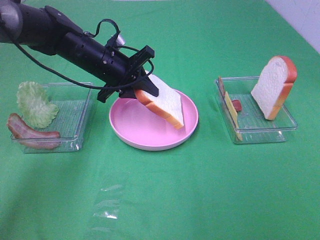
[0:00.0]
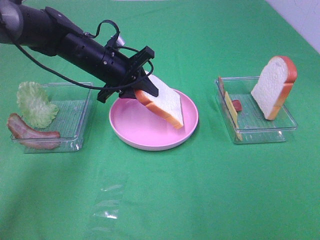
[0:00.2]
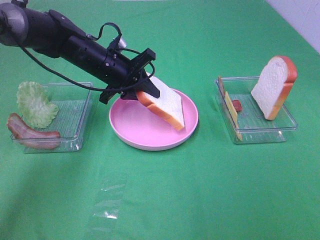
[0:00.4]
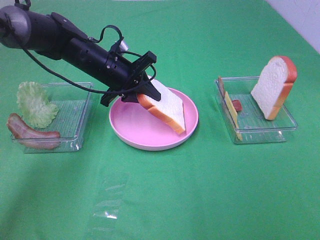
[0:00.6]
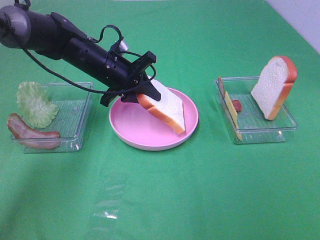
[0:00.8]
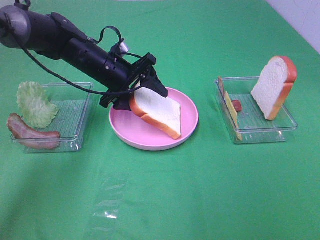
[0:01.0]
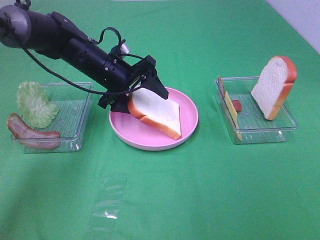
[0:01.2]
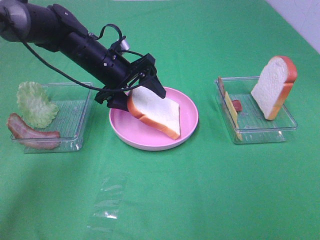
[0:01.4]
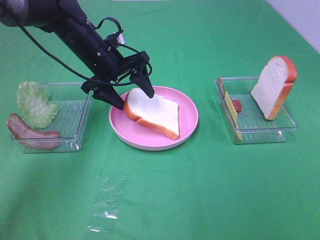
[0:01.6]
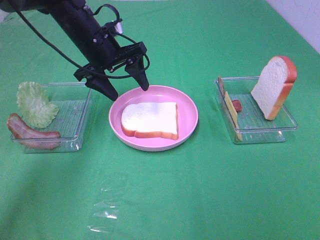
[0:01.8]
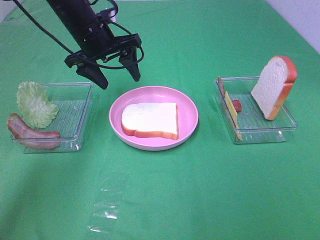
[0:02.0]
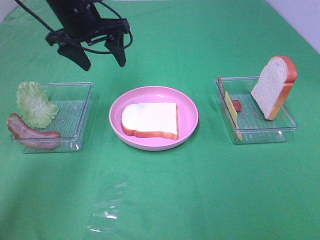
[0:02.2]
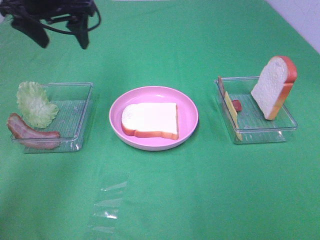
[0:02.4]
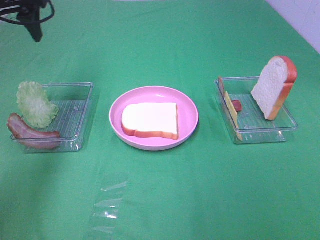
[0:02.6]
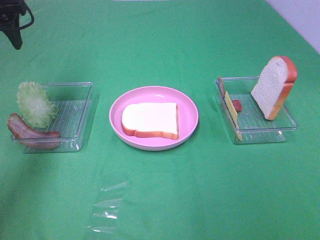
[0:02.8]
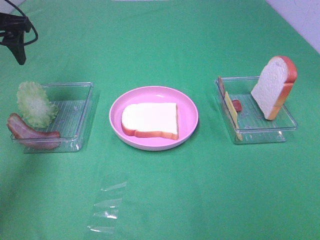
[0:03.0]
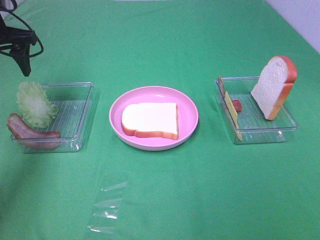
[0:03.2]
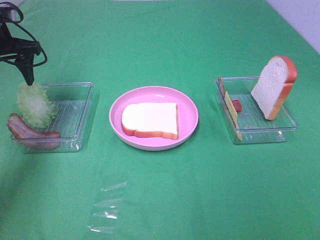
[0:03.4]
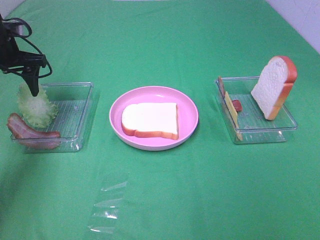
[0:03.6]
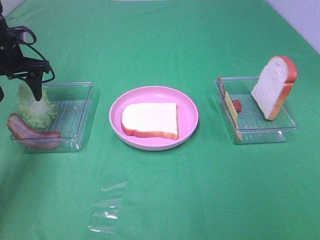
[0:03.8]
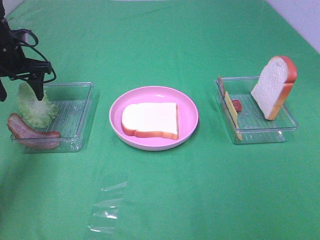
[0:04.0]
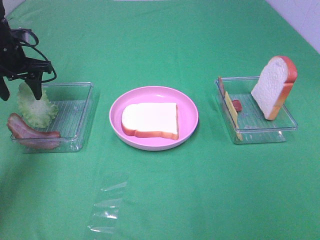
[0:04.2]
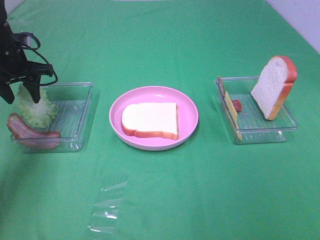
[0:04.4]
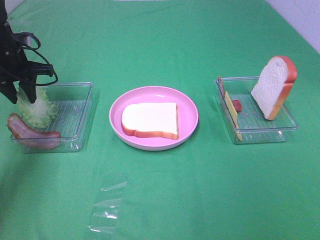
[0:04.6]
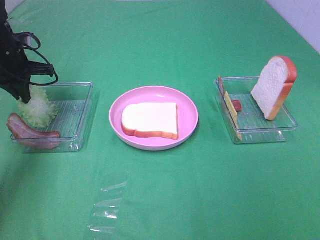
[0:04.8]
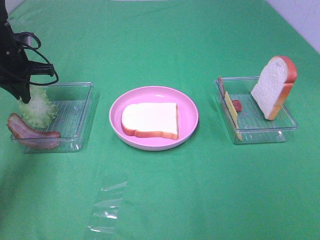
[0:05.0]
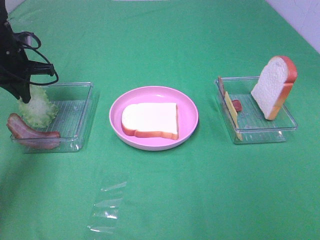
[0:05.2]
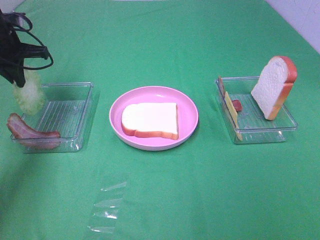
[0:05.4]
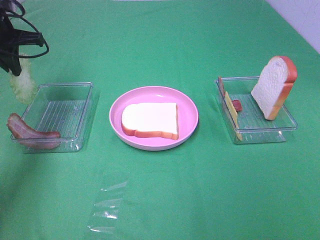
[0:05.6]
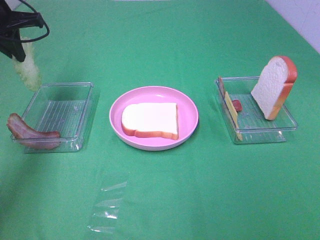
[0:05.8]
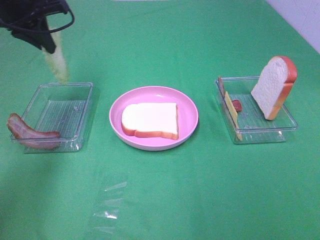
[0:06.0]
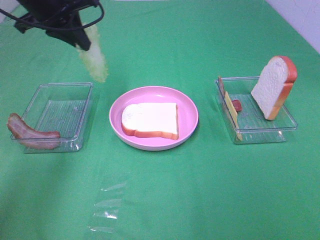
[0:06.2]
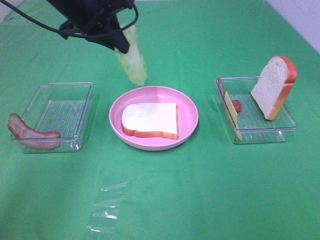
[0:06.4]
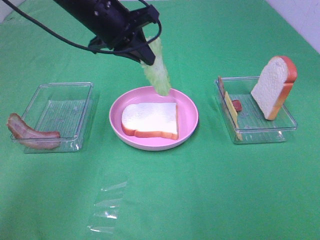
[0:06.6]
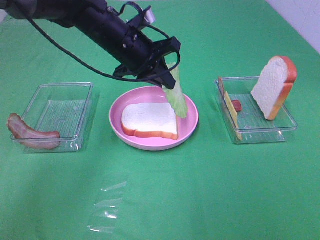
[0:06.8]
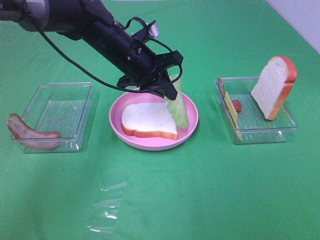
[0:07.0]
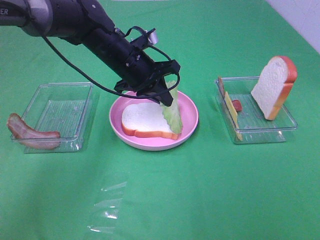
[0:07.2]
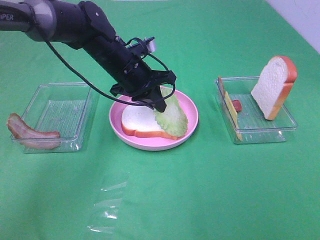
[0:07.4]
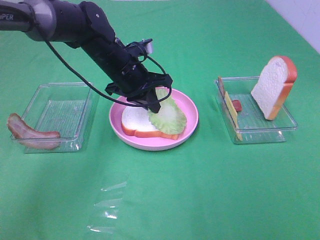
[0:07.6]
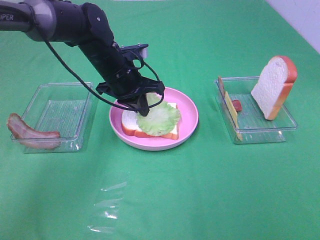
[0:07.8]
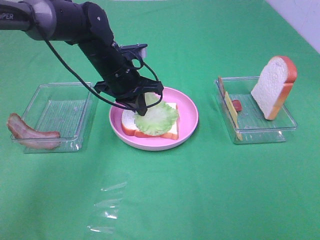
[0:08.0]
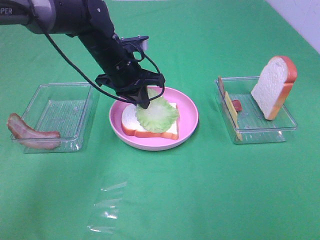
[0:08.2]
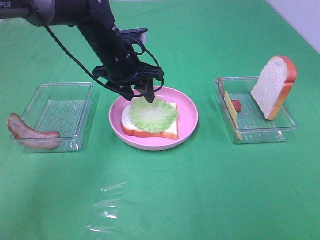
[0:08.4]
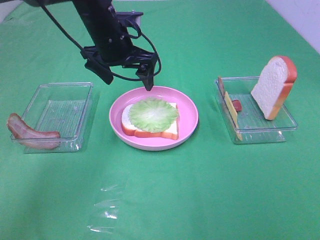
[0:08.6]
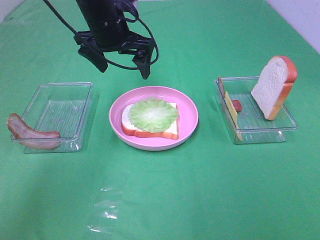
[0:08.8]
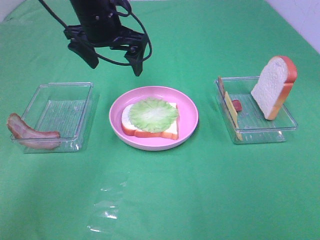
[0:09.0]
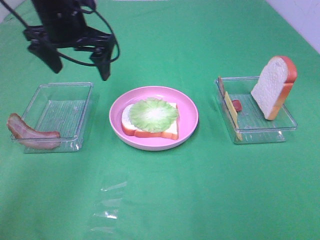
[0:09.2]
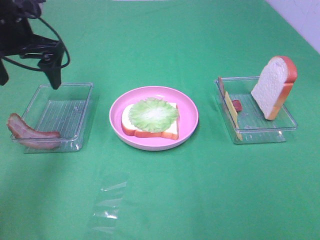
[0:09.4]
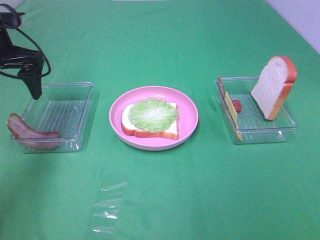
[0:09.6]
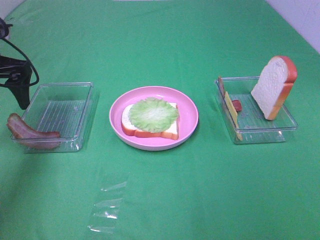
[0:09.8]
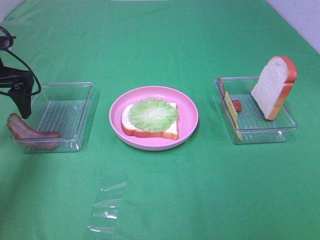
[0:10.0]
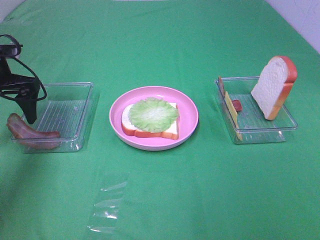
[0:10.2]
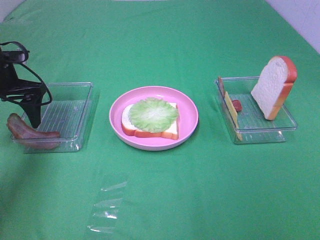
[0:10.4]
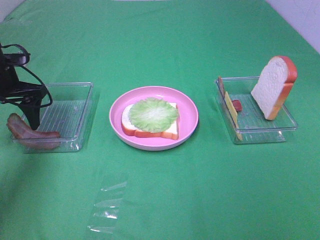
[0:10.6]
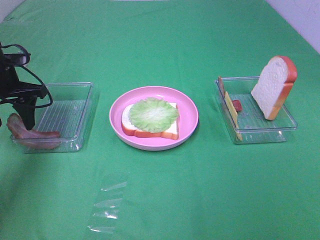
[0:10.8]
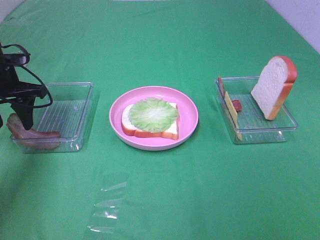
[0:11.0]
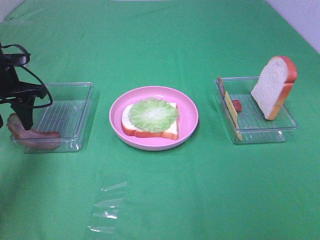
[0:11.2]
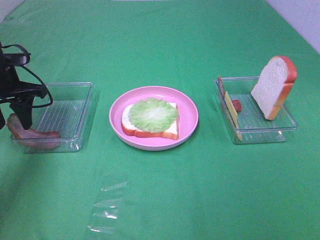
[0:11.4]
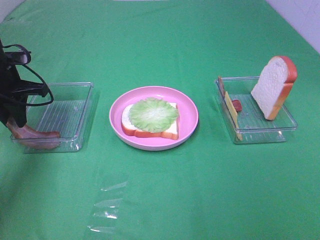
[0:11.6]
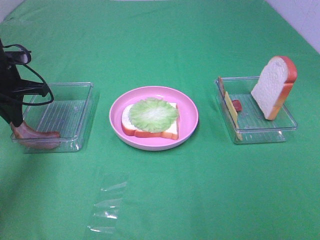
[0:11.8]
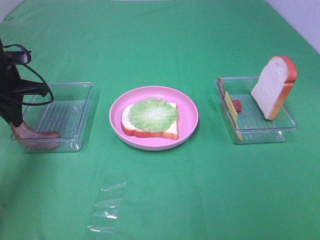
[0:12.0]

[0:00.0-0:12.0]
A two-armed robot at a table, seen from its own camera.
Task of the whole recording: Make sandwiches.
Step, 0:02.0 to 0:05.0: Left hand:grab the lettuce slice.
Step, 0:05.2 to 0:08.4: Left hand:place the lettuce slice on the bread slice.
Step, 0:08.6 to 0:11.8: Left hand:grab the bacon.
0:00.0 to 0:01.6: The left gripper opens.
0:01.6 to 0:03.0: The left gripper shifts roughly 20 cm to the left and upward.
0:03.0 to 0:04.4: The left gripper heads downward, covering approximately 10 cm.
0:04.4 to 0:06.0: The left gripper travels upward and to the right by about 15 cm, and closes.
0:06.0 to 0:07.6: The left gripper shifts approximately 20 cm to the right and downward.
0:07.6 to 0:09.0: The left gripper heads upward, covering some 10 cm, and opens its fingers.
0:09.0 to 0:10.4: The left gripper moves to the left and downward, about 20 cm.
0:10.4 to 0:12.0: The left gripper closes.

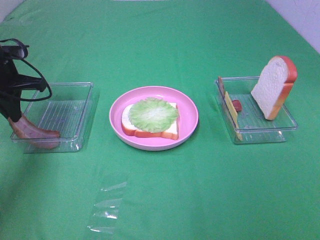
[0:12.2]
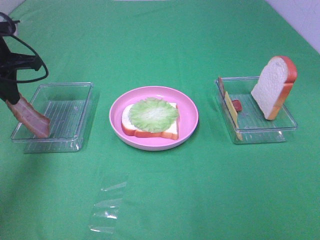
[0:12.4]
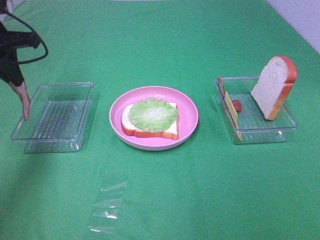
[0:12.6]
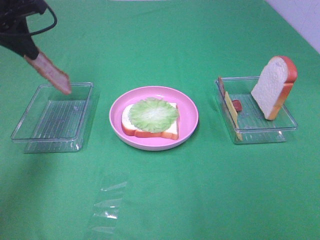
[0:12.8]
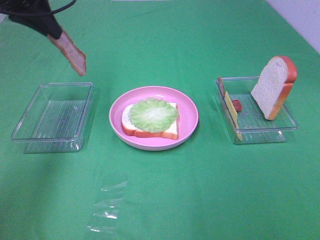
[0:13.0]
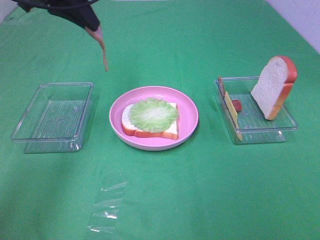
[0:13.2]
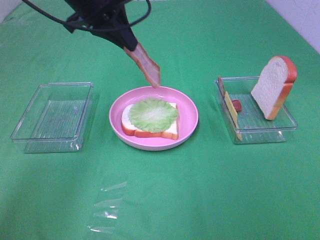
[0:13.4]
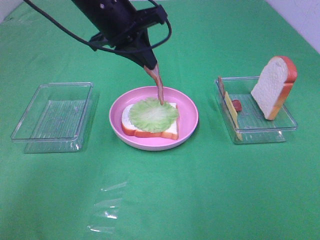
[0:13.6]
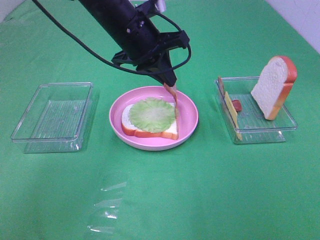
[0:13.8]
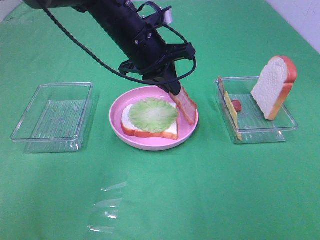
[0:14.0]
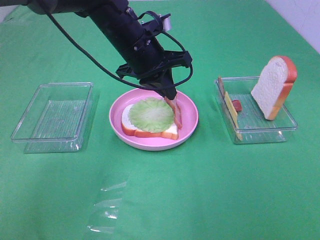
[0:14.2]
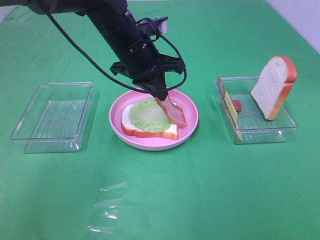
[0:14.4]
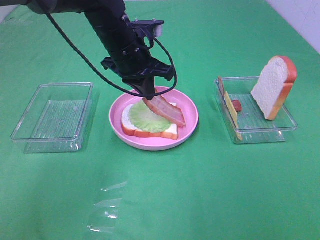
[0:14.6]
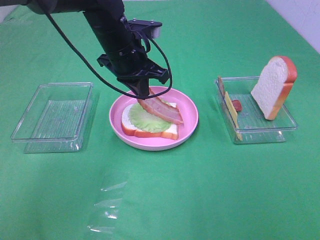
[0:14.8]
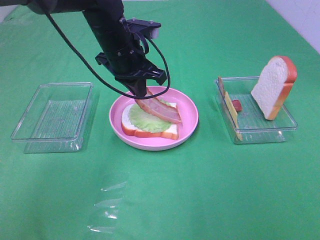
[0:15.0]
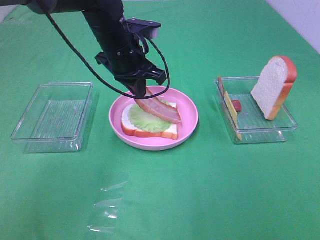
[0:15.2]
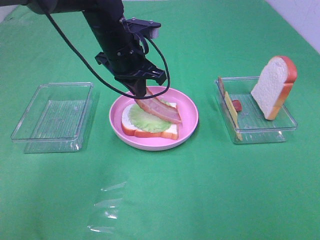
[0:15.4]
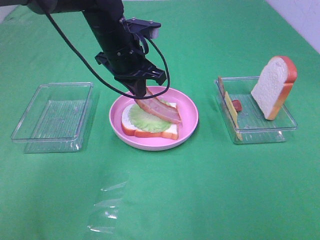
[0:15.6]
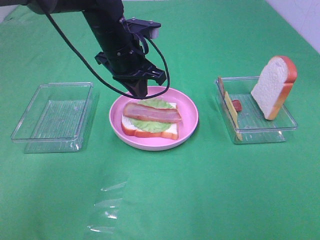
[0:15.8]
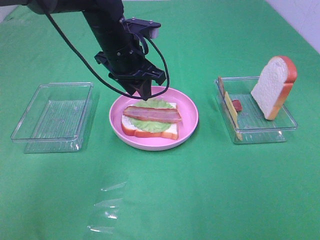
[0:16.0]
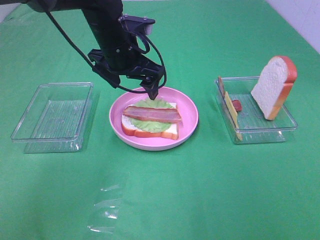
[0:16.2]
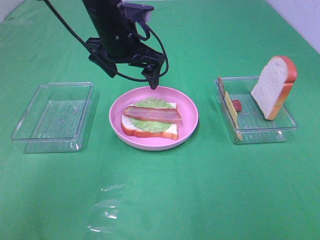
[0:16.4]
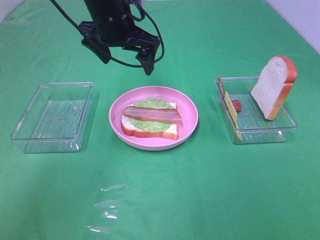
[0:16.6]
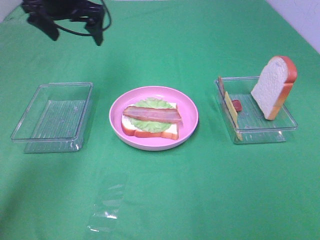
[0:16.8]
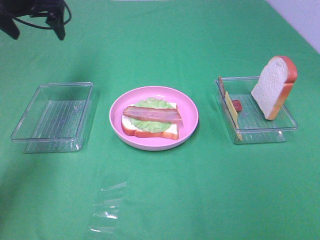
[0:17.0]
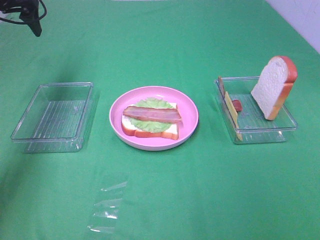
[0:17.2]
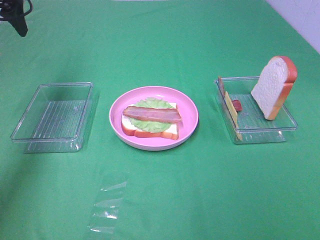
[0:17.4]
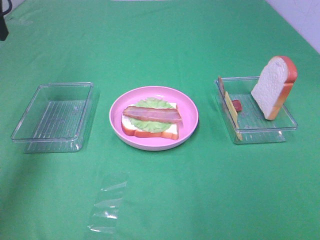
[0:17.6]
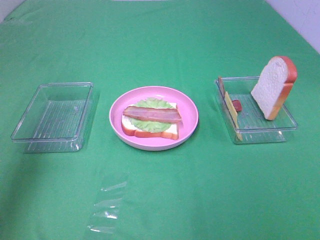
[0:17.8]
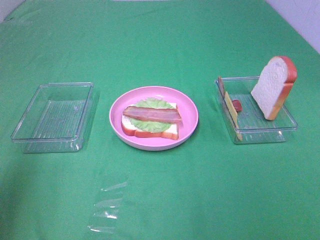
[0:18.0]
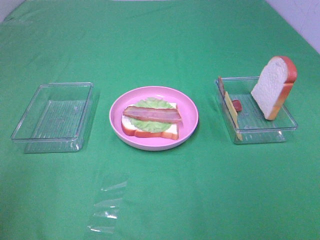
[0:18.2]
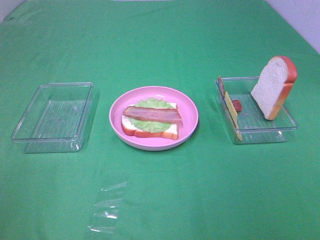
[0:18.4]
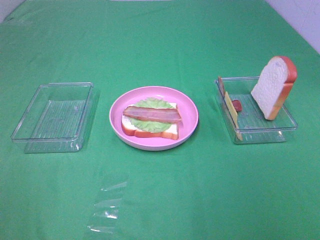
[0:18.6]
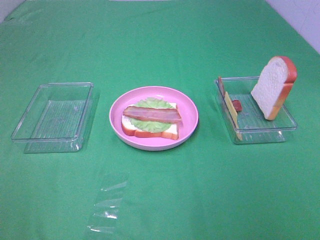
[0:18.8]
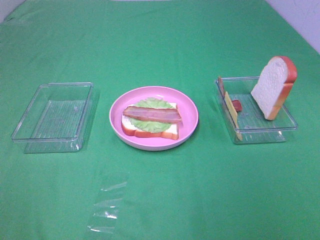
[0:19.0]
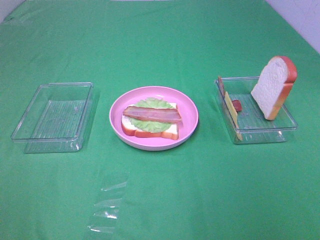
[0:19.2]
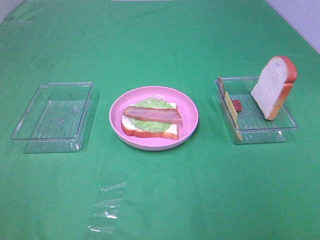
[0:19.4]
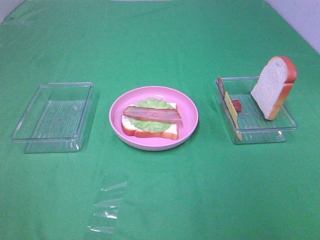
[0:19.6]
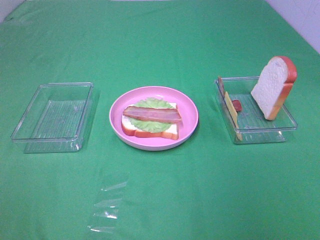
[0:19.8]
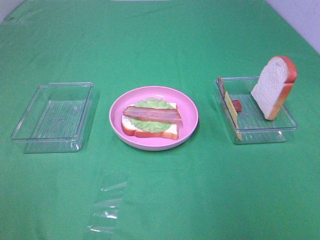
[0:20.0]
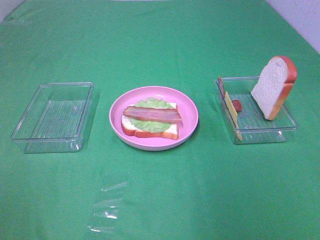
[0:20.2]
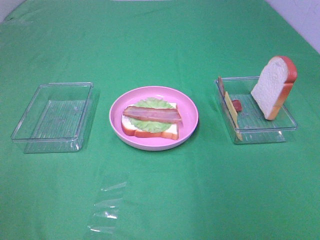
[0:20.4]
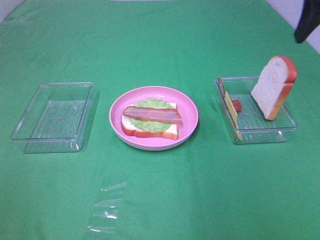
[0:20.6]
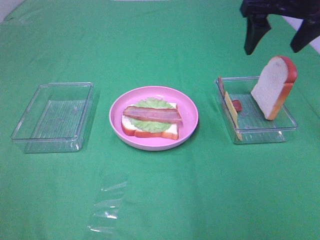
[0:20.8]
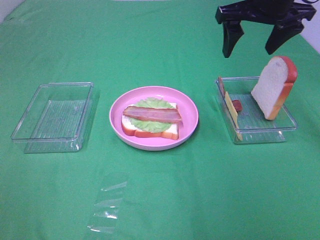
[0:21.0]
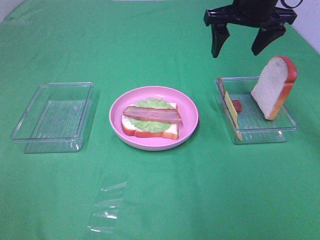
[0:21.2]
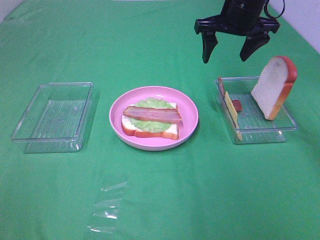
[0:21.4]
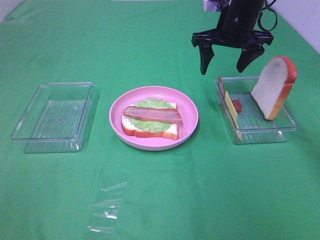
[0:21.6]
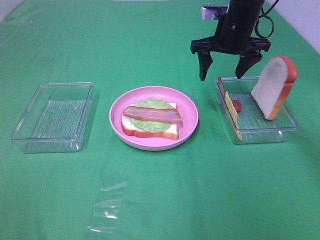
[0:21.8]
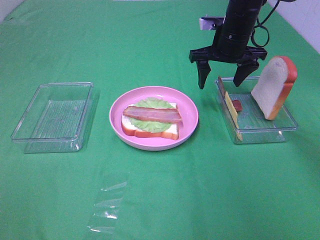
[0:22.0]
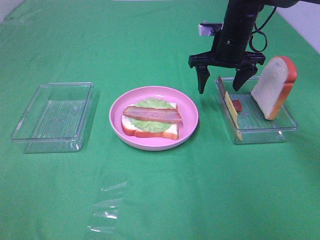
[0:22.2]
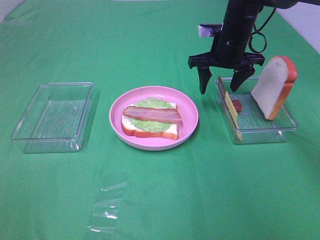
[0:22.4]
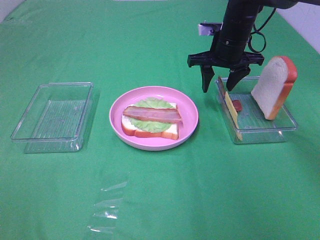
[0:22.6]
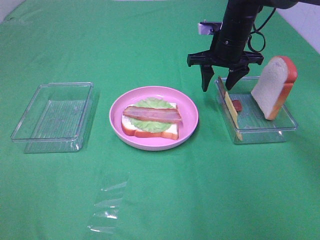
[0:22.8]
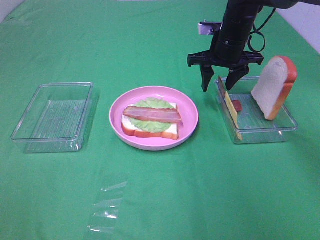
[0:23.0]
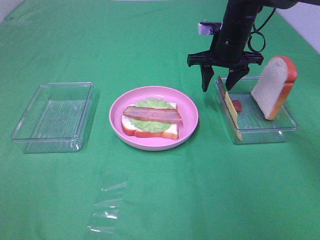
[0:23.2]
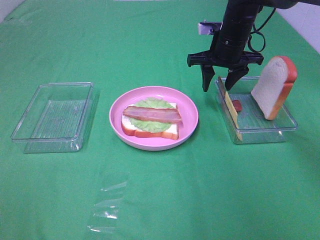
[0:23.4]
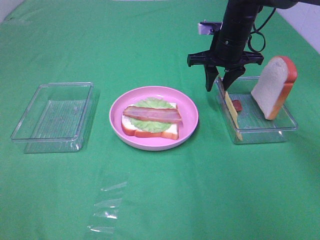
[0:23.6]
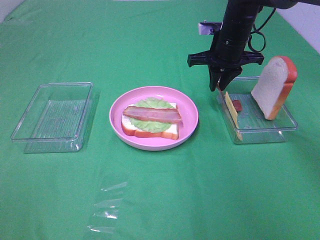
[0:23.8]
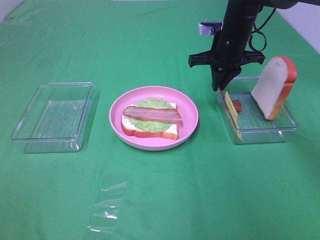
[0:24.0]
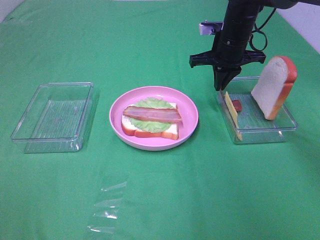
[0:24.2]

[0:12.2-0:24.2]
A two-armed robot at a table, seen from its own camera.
Task of the whole recording: Make sandwiches.
Step, 0:12.2 to 0:15.8: Left hand:place bacon on lettuce slice.
0:12.2 to 0:13.8: The left gripper is displaced to the right by roughly 25 cm.
0:15.2 to 0:16.6: The left gripper is displaced upward by roughly 5 cm, and opens up.
0:16.6 to 0:18.2: The left gripper is displaced backward and to the left by roughly 40 cm.
0:19.8 to 0:21.2: The right gripper is displaced forward by roughly 35 cm.
0:21.2 to 0:22.6: The right gripper moves downward, about 10 cm.
0:22.6 to 0:24.2: The right gripper closes up.
